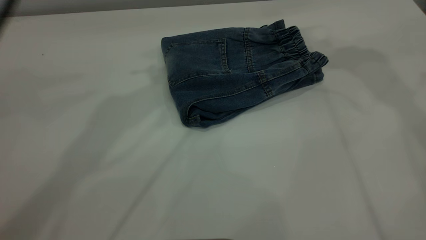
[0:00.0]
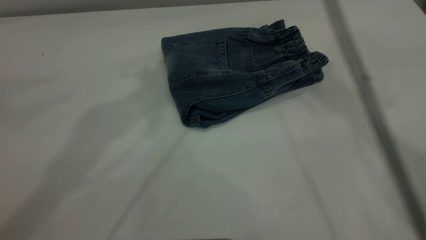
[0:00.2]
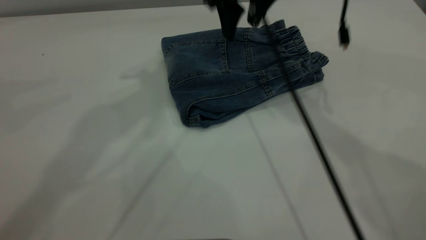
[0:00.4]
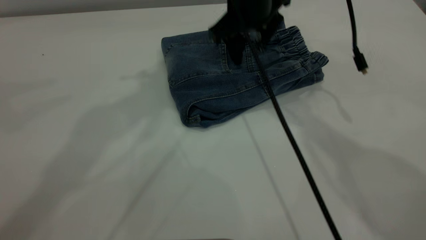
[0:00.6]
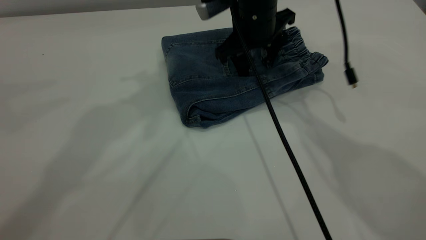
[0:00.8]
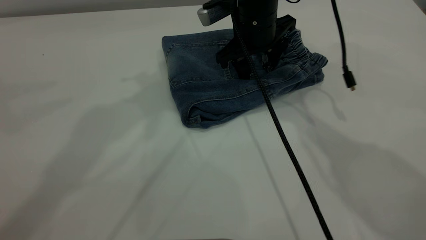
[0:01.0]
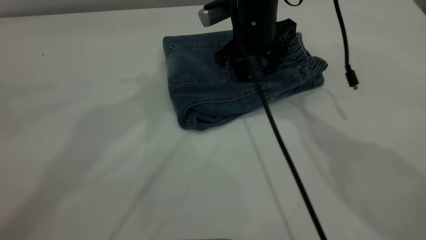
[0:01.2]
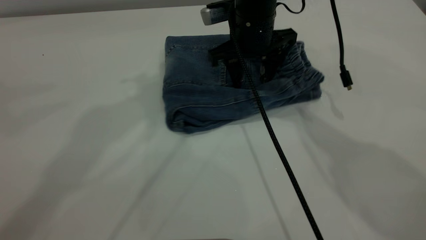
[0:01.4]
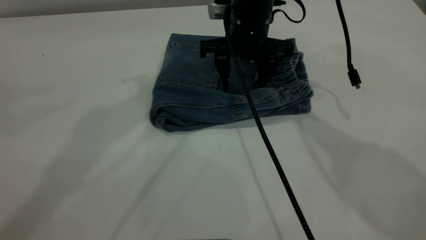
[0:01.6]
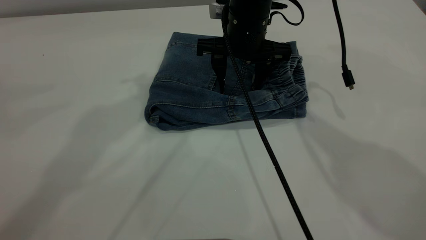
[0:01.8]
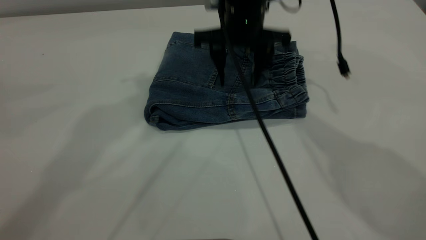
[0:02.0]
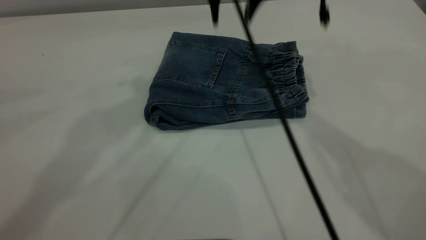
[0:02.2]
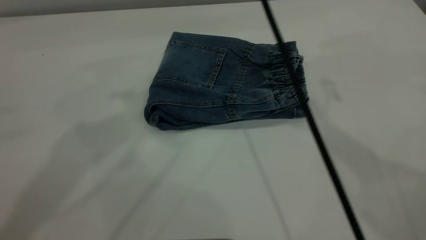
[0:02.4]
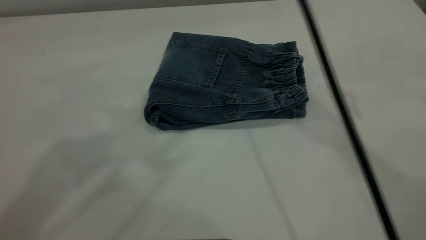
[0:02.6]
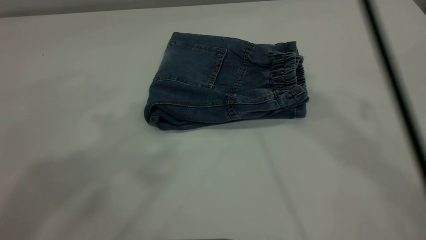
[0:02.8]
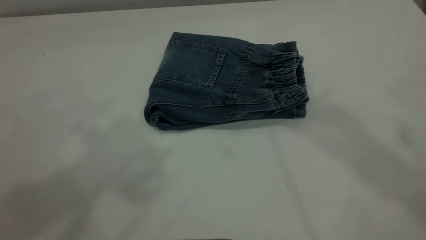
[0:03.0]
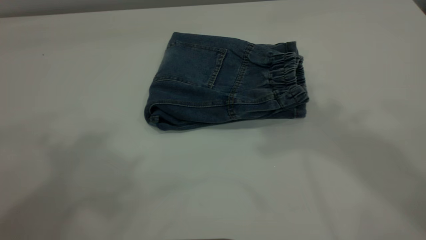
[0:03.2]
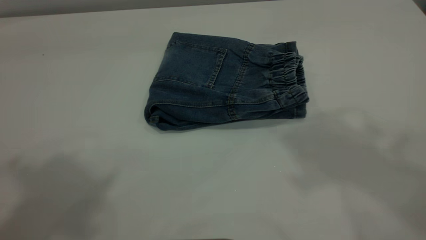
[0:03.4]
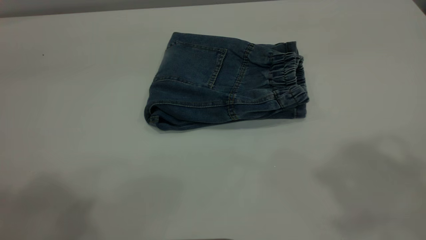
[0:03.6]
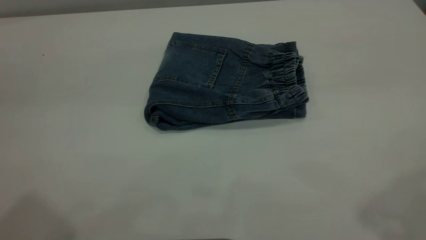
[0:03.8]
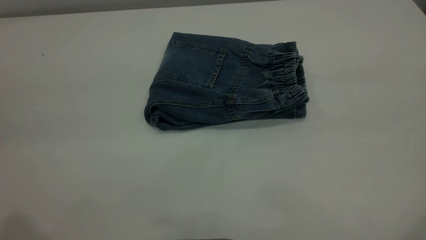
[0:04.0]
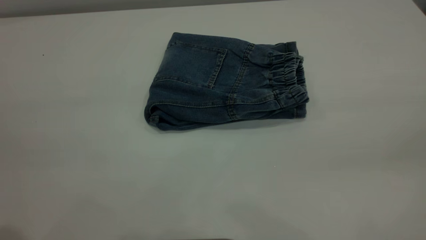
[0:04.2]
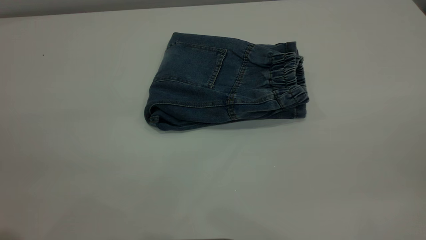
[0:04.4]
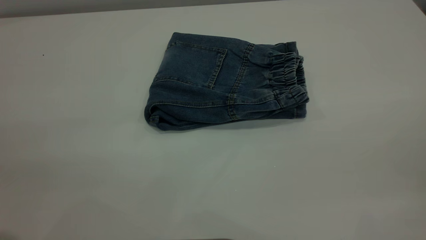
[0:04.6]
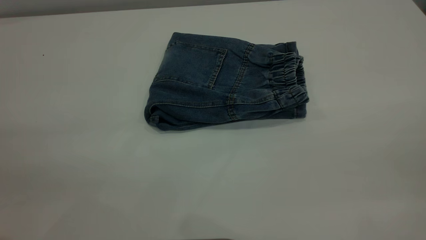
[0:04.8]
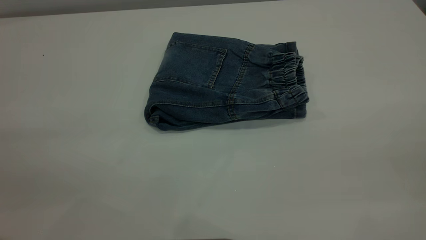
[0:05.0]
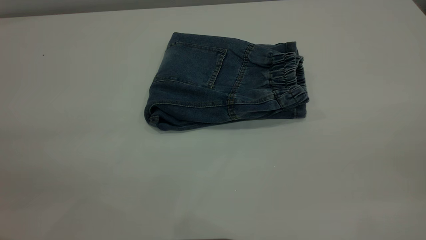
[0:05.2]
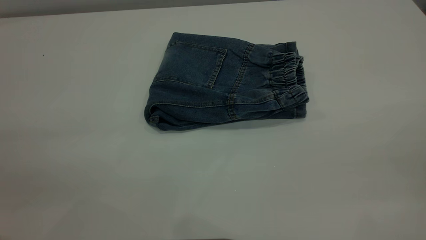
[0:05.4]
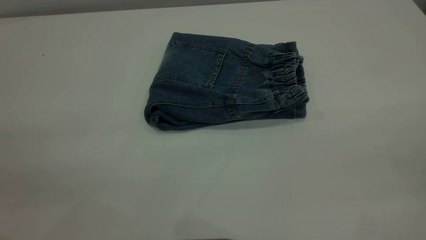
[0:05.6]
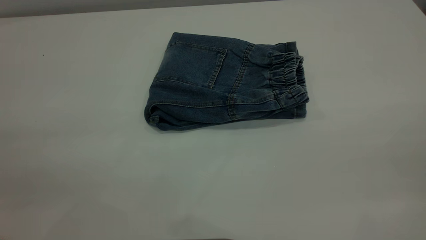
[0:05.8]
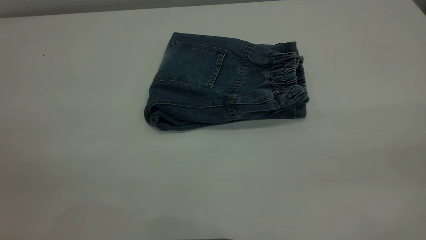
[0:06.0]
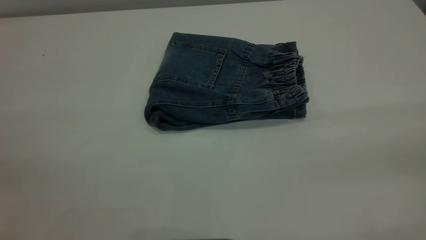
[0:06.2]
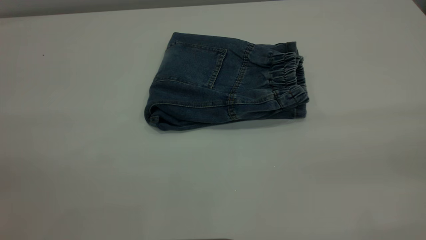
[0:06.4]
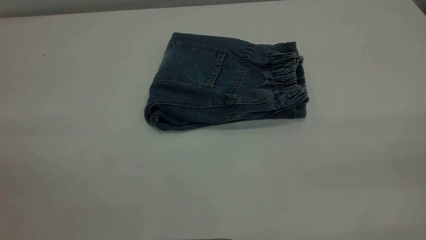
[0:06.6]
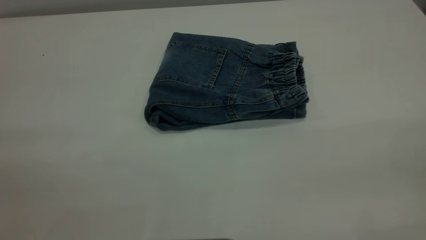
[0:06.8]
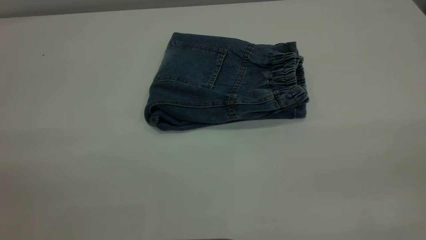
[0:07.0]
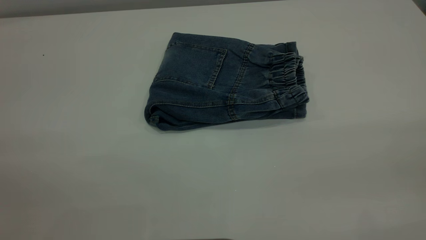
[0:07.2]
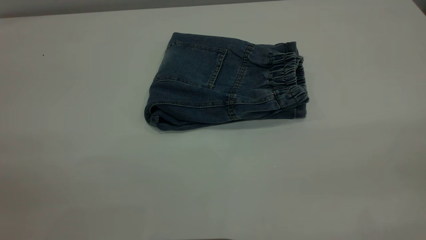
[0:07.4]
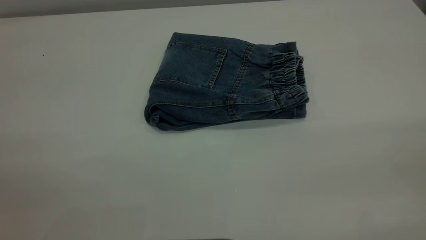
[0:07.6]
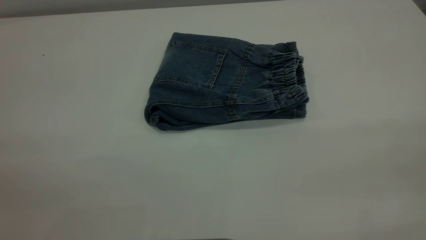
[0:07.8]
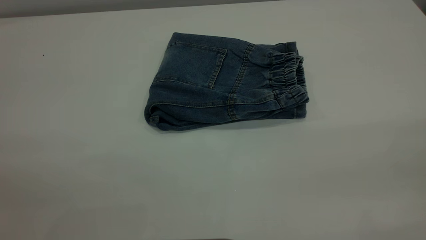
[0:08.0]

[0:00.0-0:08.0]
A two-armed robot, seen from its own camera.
0:00.0 to 0:01.6: The right gripper shifts about 20 cm downward and to the left.
0:01.6 to 0:03.2: The right gripper shifts approximately 40 cm upward; the left gripper is displaced backward, upward and to the left by approximately 25 cm.
